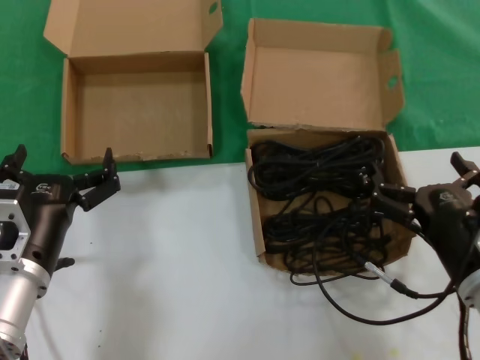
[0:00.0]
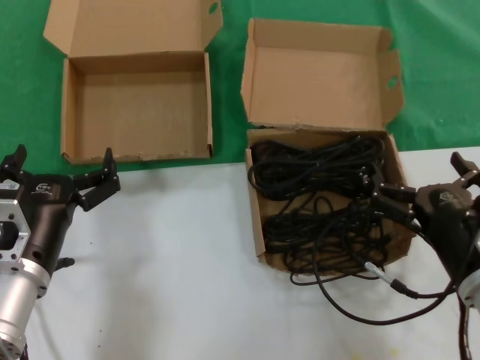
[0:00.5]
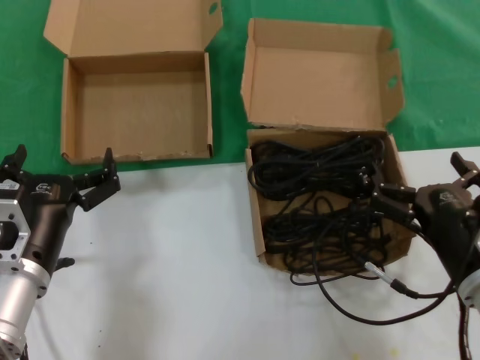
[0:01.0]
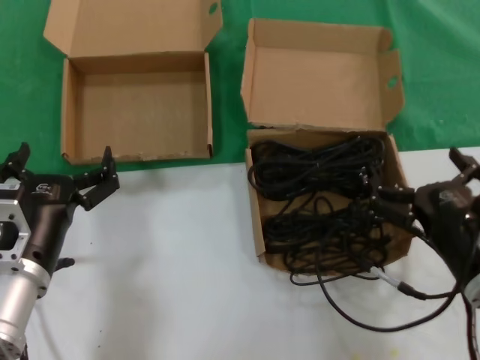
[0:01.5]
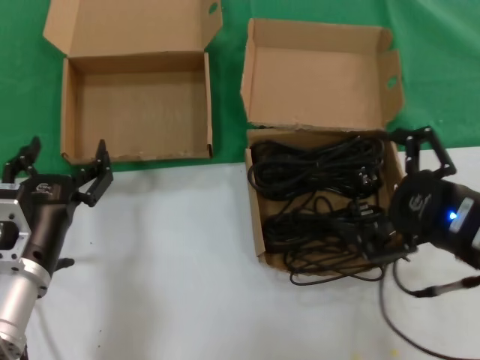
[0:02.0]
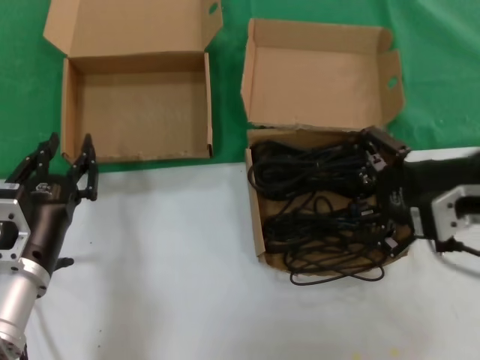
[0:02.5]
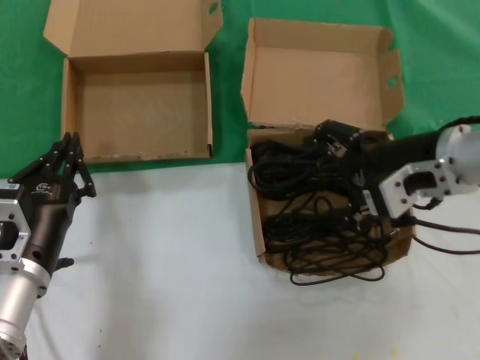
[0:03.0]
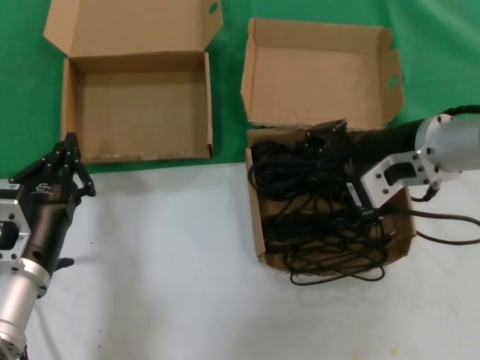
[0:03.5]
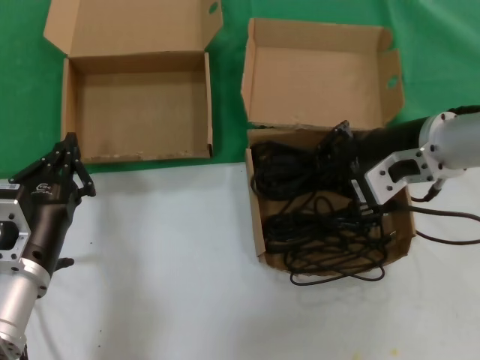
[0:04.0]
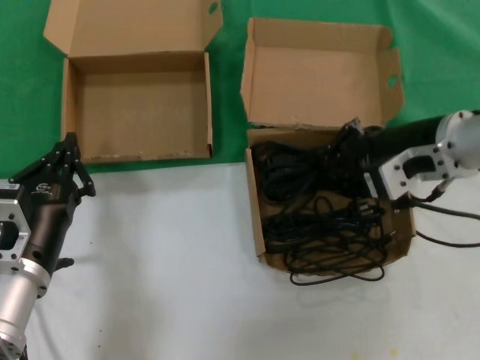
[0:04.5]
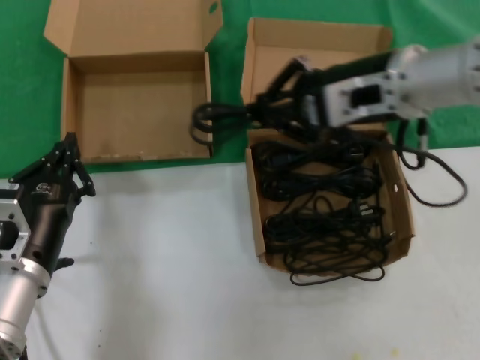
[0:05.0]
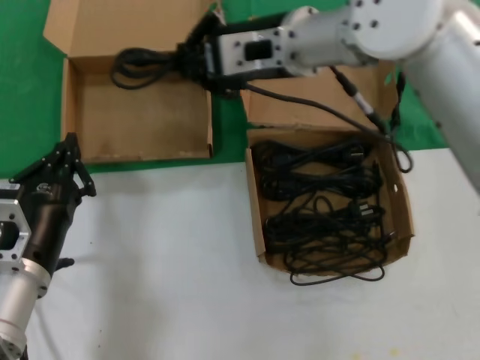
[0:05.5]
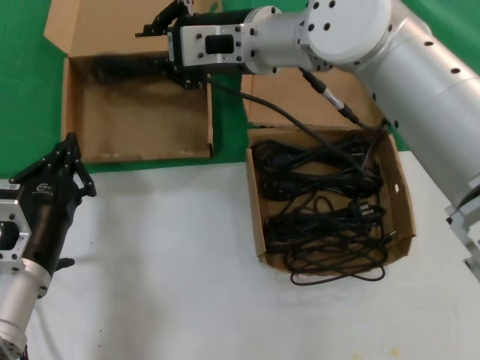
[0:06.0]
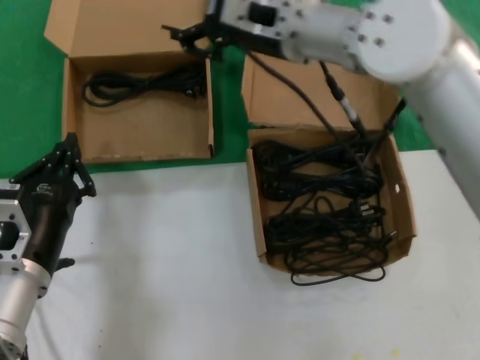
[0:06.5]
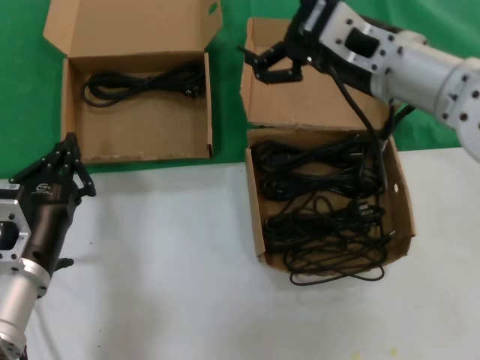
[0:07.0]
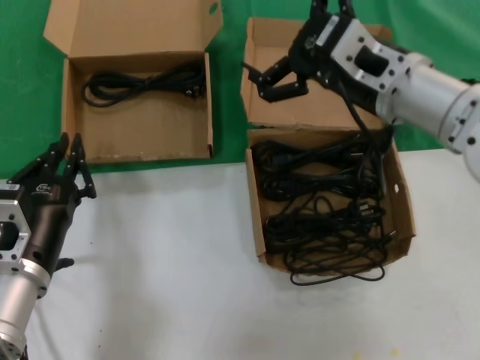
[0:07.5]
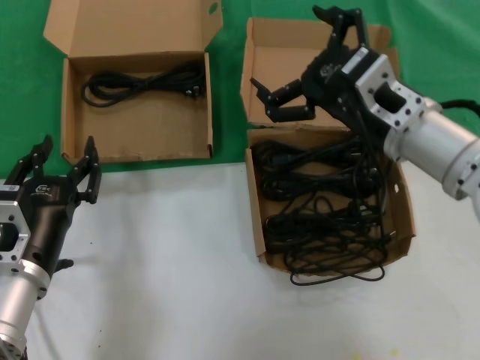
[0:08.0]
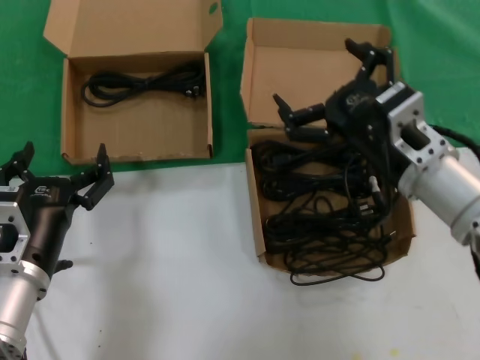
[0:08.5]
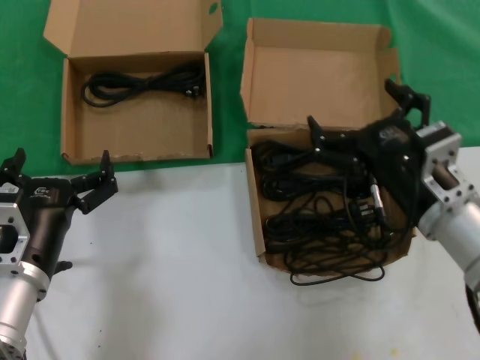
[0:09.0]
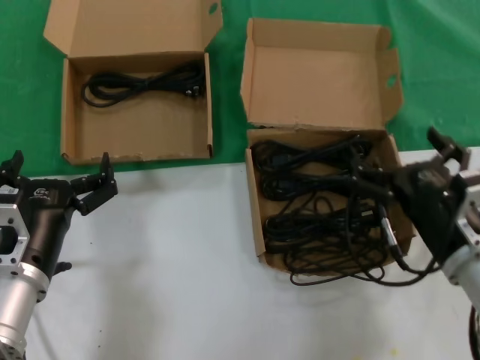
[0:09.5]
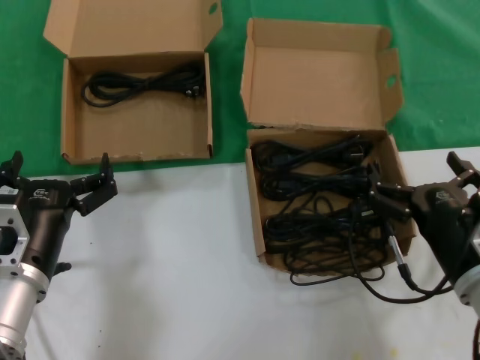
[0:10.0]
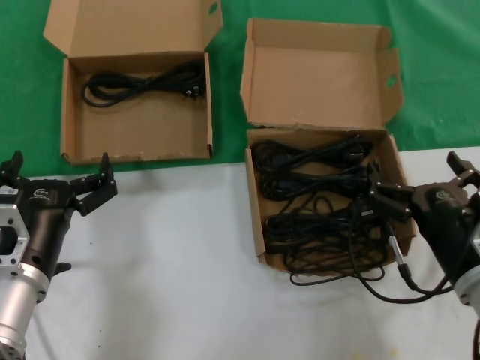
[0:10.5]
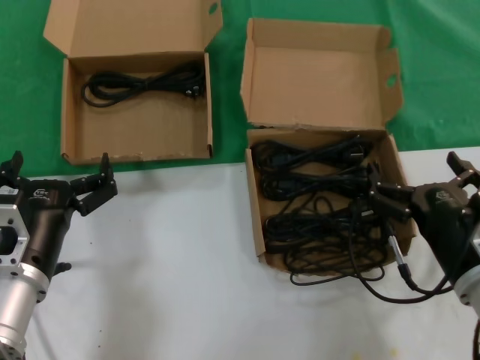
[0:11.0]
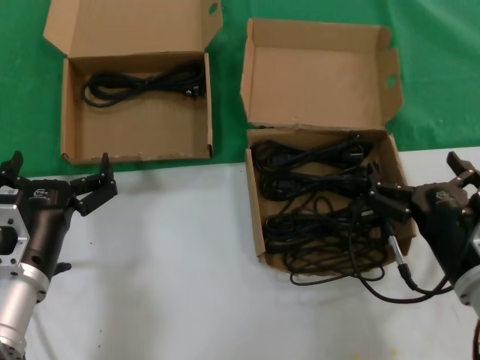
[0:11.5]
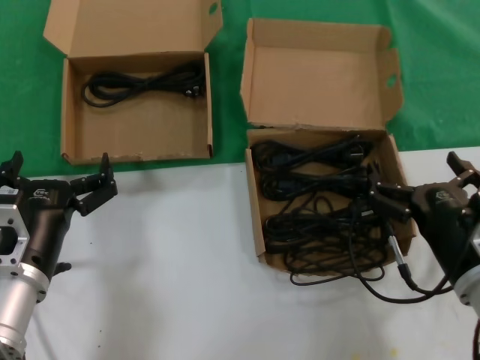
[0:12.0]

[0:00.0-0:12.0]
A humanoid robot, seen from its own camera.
Task of the whole recording: take the parts from the box containing them and put them into an empty box.
Step, 0:00.0 to 0:03.5: Grasp the data cable.
Step, 0:04.0 to 0:06.0: Place the data cable in the another box.
0:00.0 to 0:02.0: The right hand moves upward, roughly 10 cm.
0:02.0 to 0:04.0: The right hand goes roughly 15 cm forward, upward and to the left.
0:04.0 to 0:06.0: The right hand travels to the left and forward by approximately 20 cm.
0:06.0 to 0:08.0: The right hand heads to the right, backward and downward, covering some 20 cm.
0:08.0 to 0:10.0: The right hand shifts roughly 20 cm downward, backward and to the right.
0:10.0 to 0:12.0: Both hands stay about where they are.

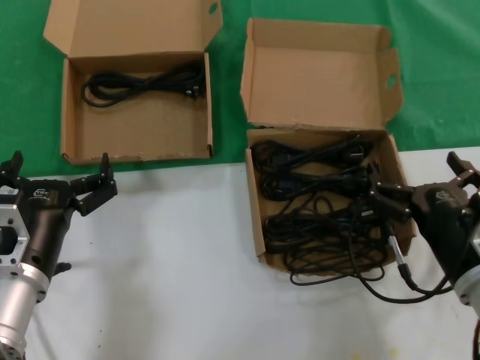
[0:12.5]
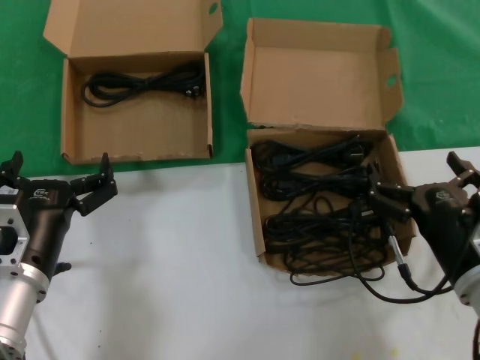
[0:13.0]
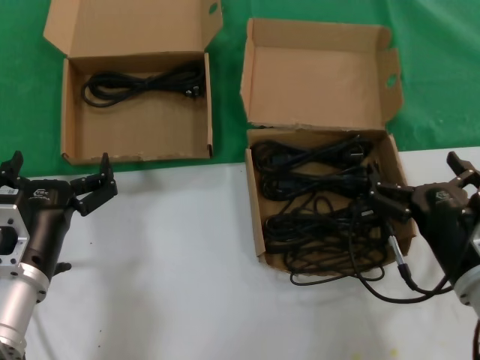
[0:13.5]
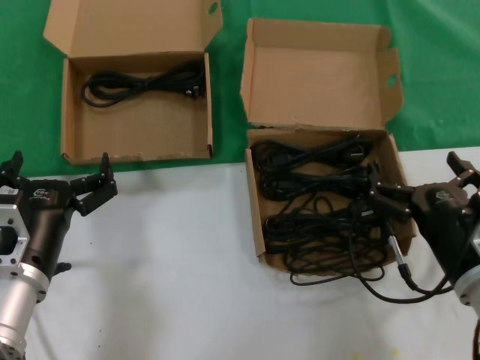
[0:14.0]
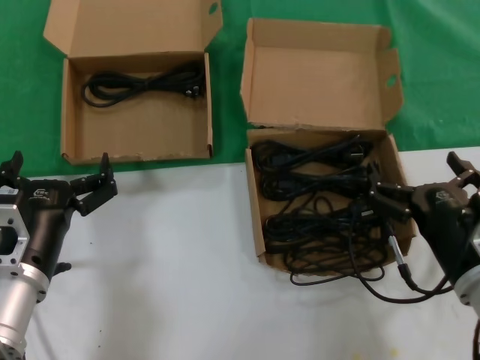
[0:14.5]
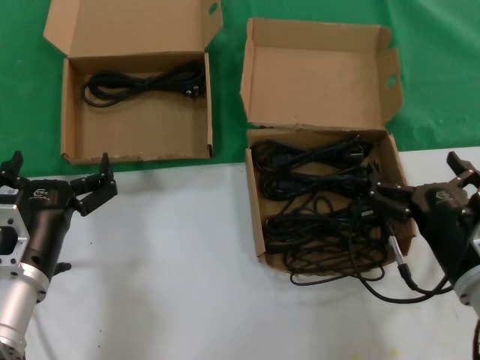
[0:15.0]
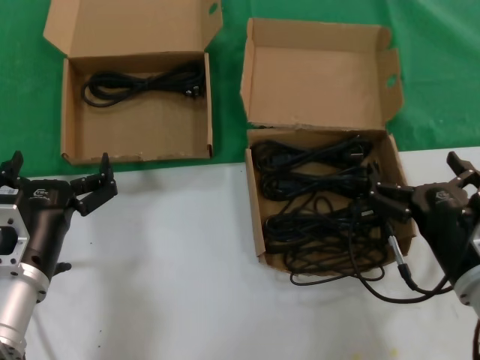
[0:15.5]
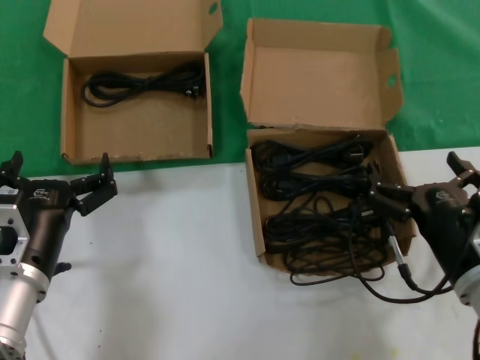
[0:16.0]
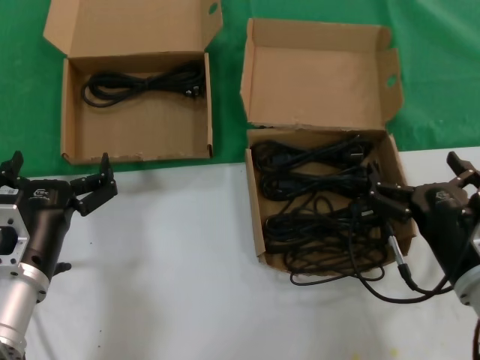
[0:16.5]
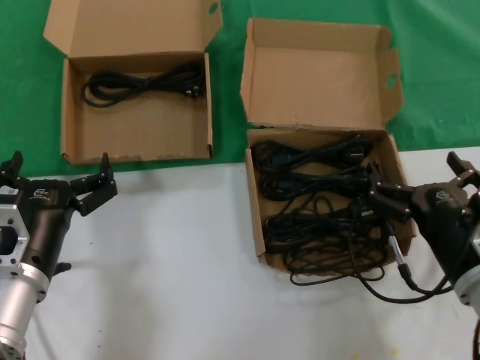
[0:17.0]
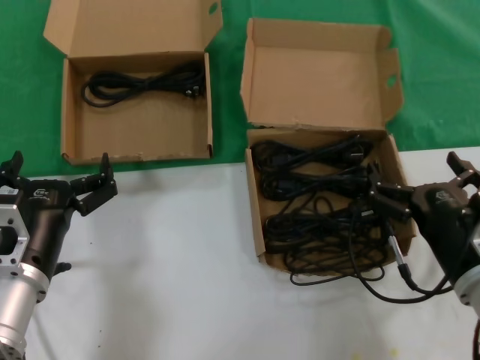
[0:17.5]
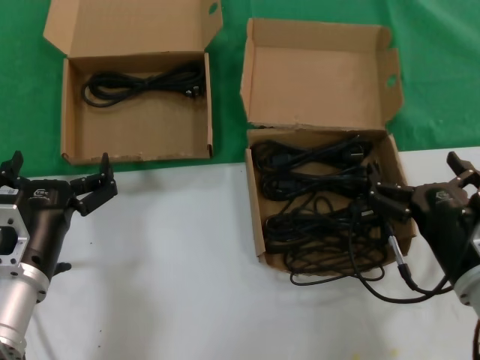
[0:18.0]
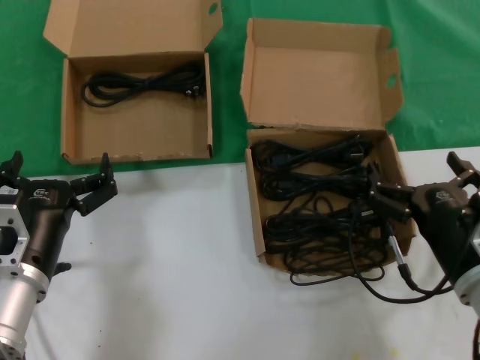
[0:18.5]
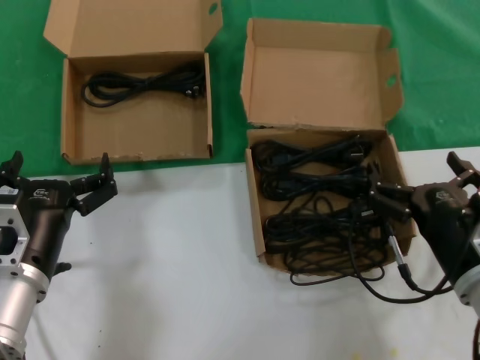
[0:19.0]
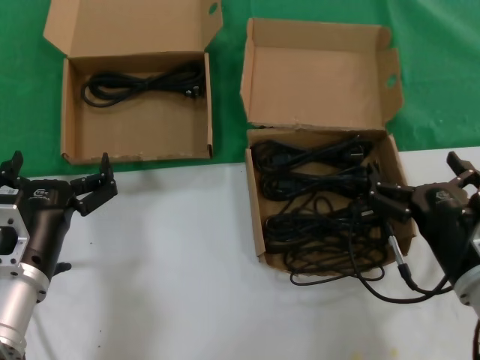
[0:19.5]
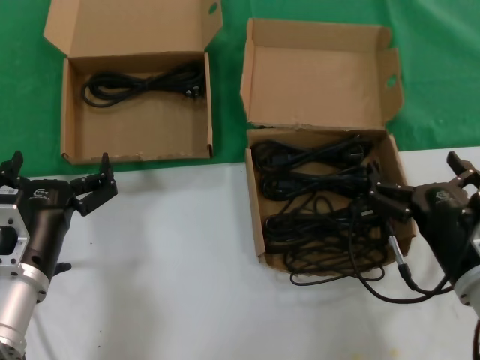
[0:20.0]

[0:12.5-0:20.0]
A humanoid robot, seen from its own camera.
Task of the whole recording: take the parts from the box containing them and put them into an empty box.
0:12.5 to 0:20.0: The two hands keep their place.

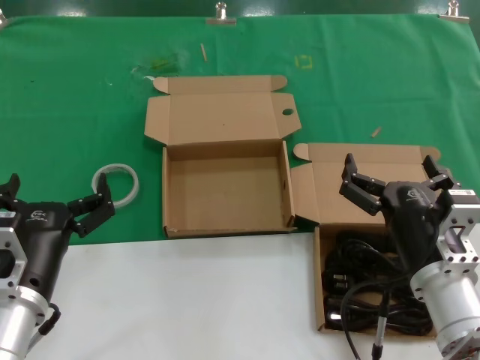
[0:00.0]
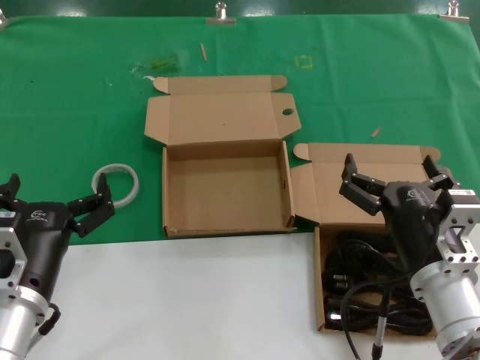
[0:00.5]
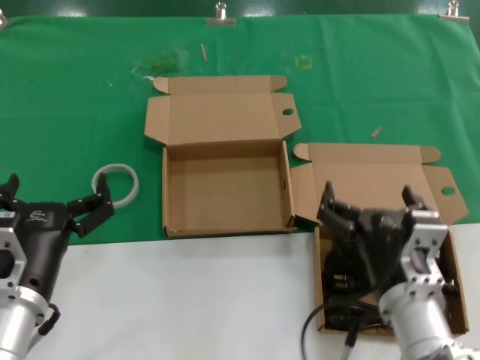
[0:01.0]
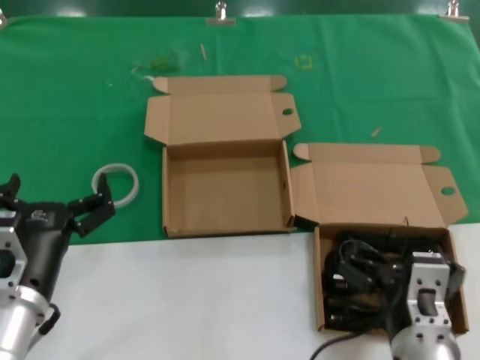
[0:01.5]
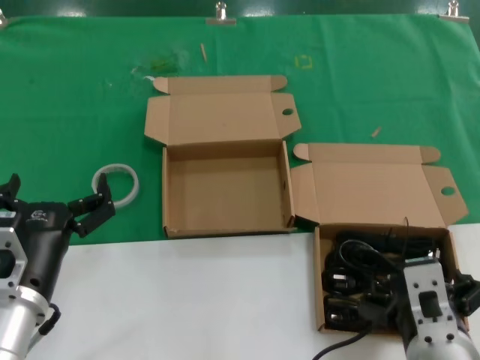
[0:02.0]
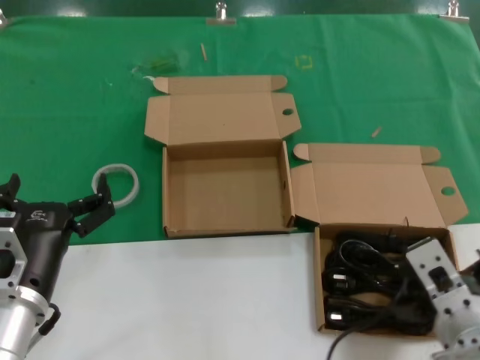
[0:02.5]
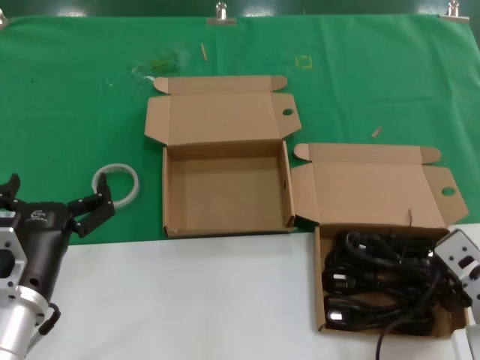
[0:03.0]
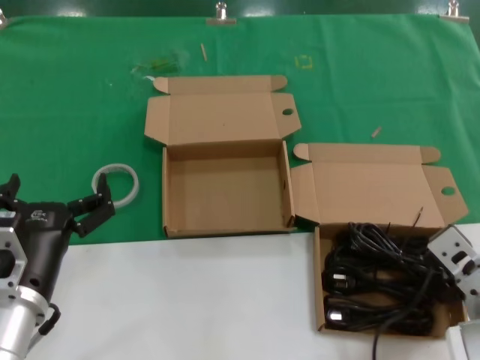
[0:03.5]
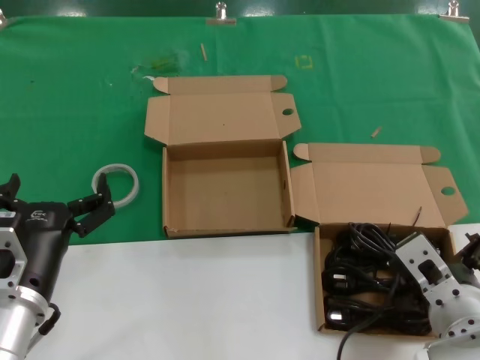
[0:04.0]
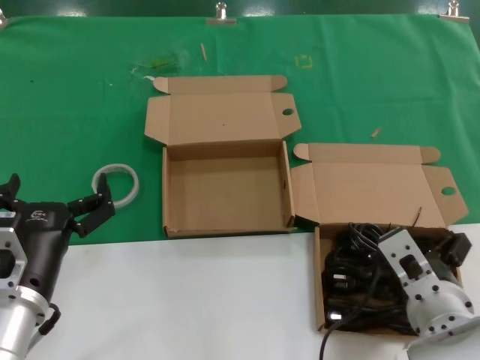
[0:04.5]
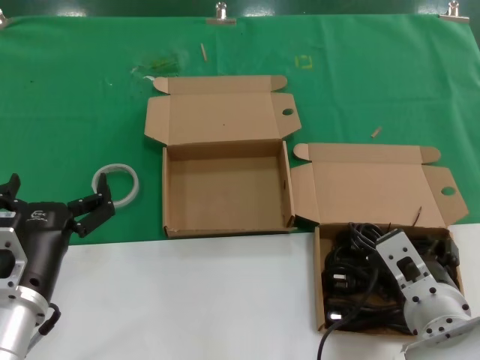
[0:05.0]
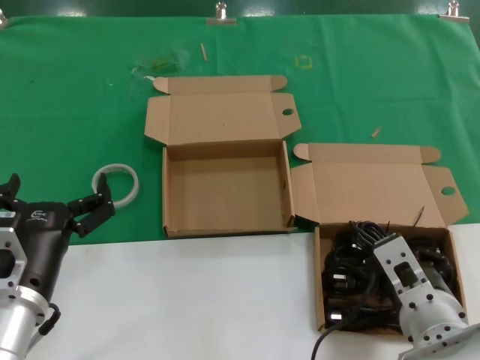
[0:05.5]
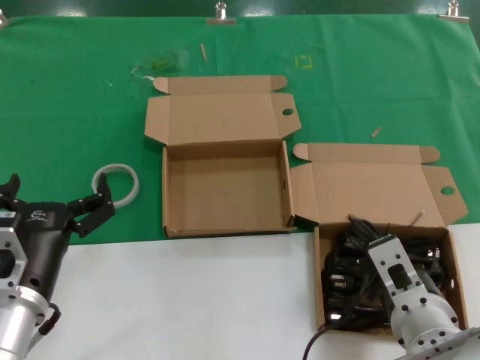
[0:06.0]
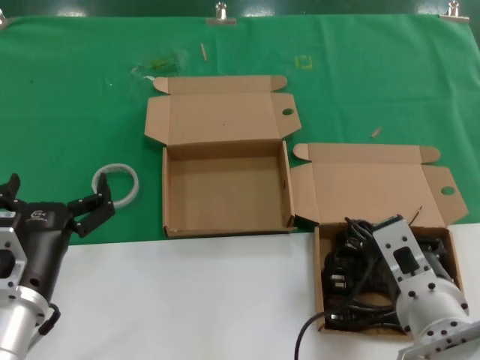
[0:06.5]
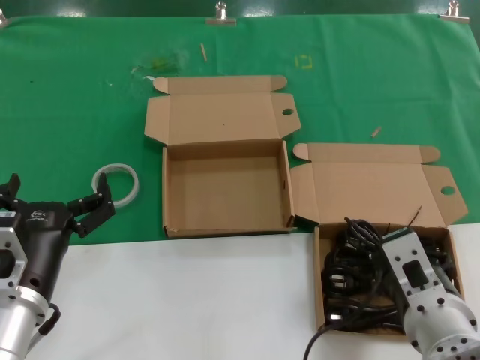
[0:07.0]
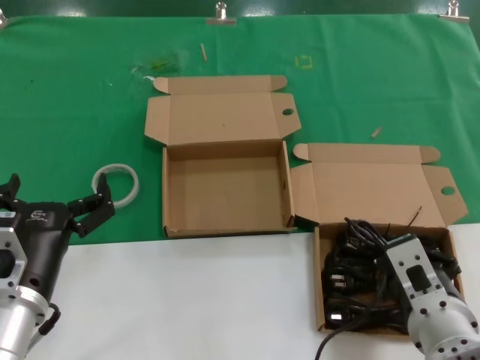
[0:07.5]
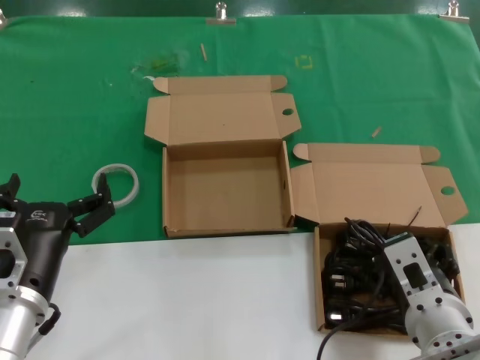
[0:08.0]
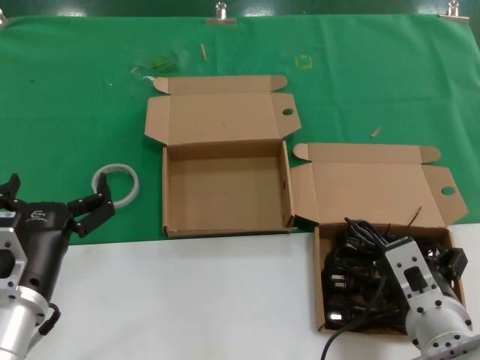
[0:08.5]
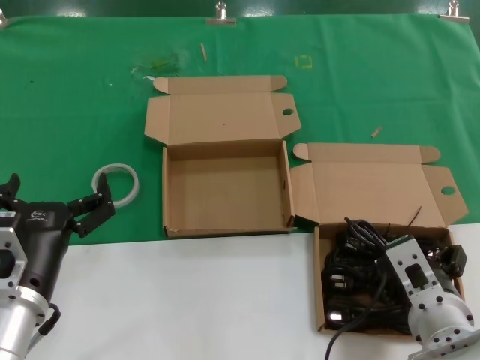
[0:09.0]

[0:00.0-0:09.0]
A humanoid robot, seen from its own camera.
Task of the whole recording: take the parts from the box containing them and put them into an empty box.
0:00.0 to 0:02.0: The right hand travels backward by some 5 cm.
0:02.0 to 0:04.5: The right hand heads forward, covering roughly 5 cm, and reaches about 10 cm to the right, then returns.
0:04.5 to 0:07.0: The right hand moves roughly 5 cm.
0:07.0 to 0:09.0: The right hand changes place by approximately 5 cm.
